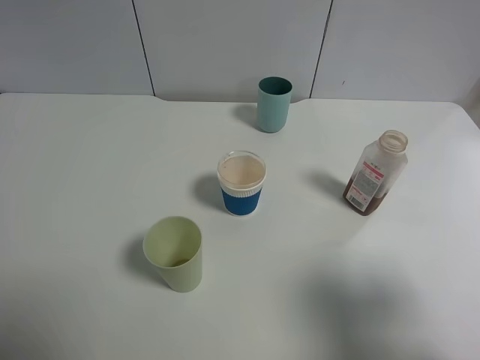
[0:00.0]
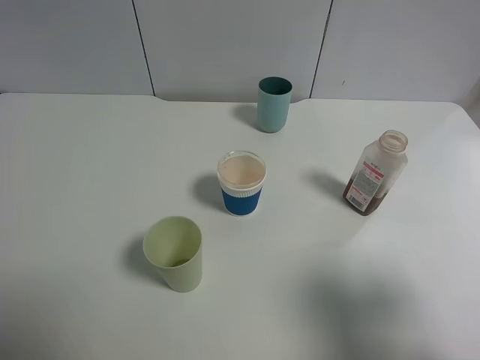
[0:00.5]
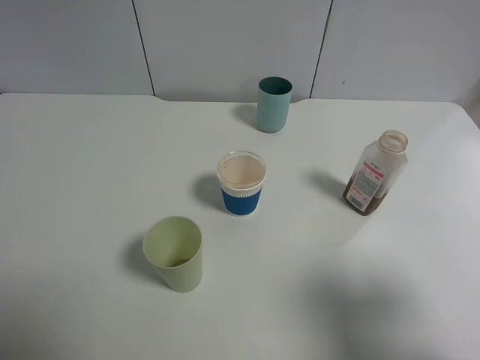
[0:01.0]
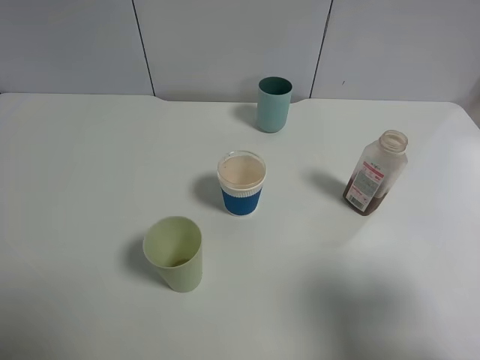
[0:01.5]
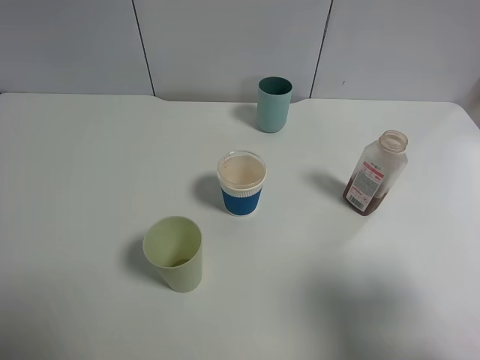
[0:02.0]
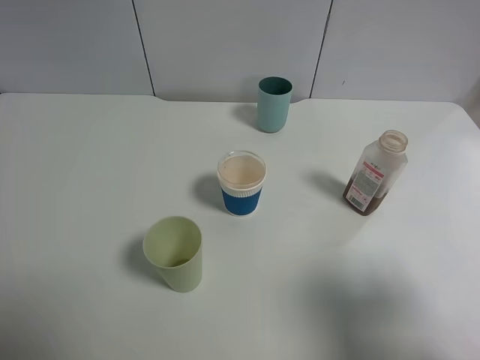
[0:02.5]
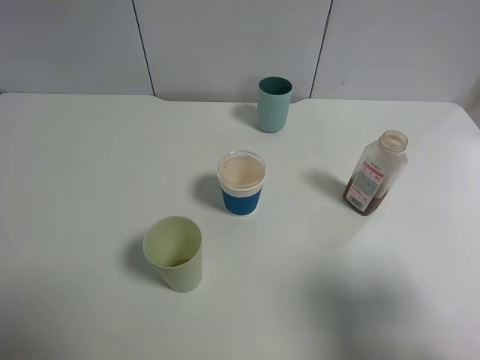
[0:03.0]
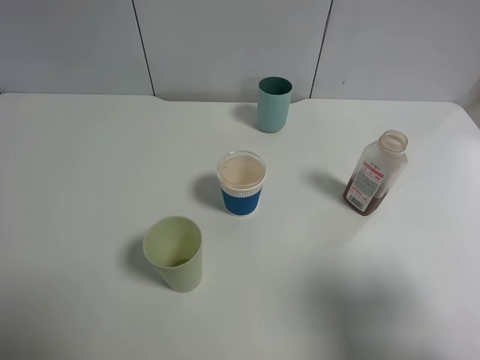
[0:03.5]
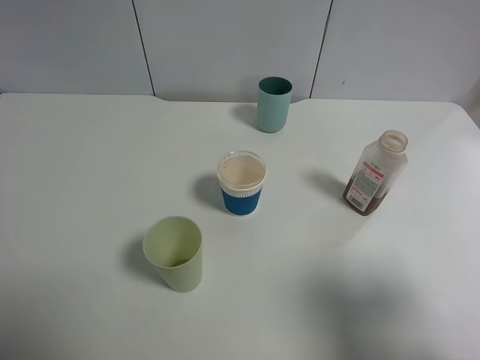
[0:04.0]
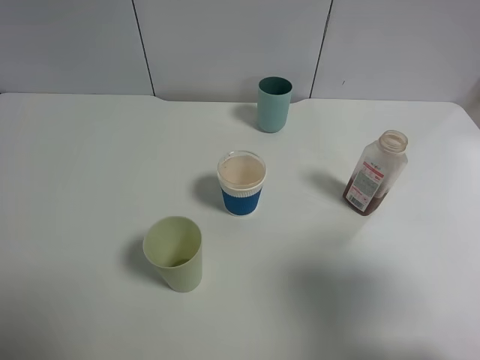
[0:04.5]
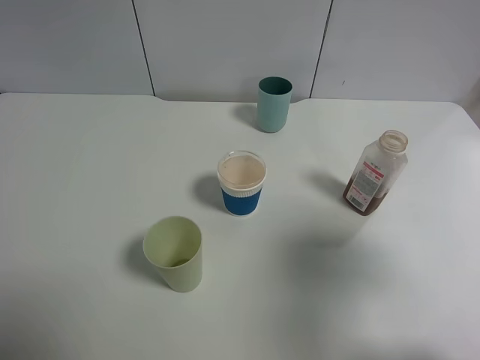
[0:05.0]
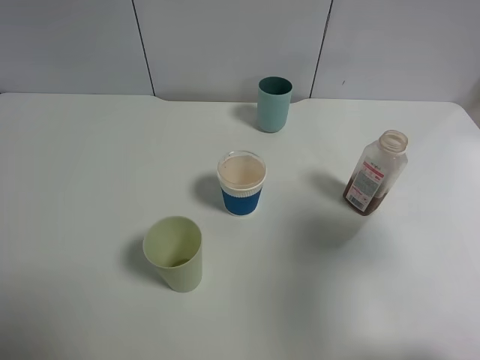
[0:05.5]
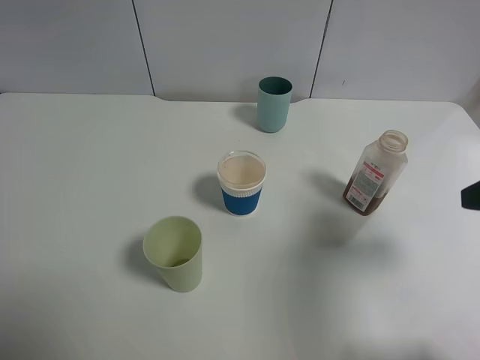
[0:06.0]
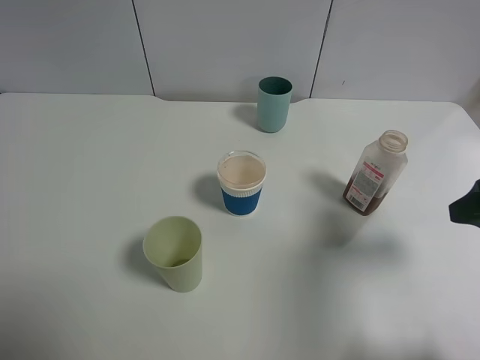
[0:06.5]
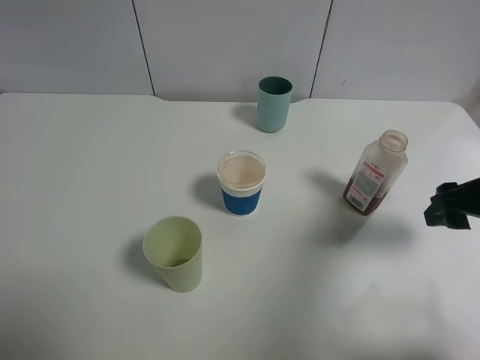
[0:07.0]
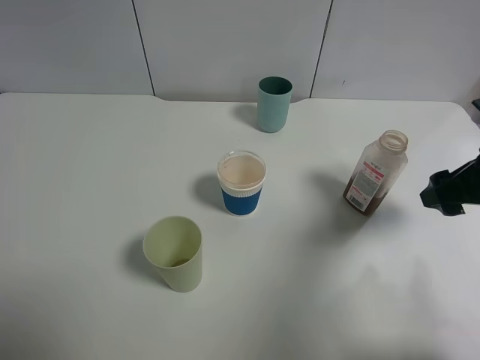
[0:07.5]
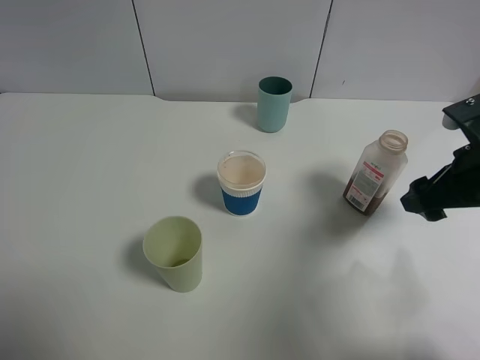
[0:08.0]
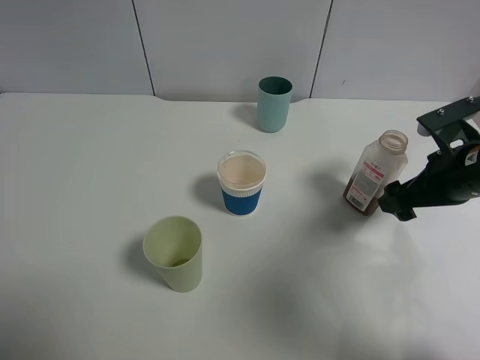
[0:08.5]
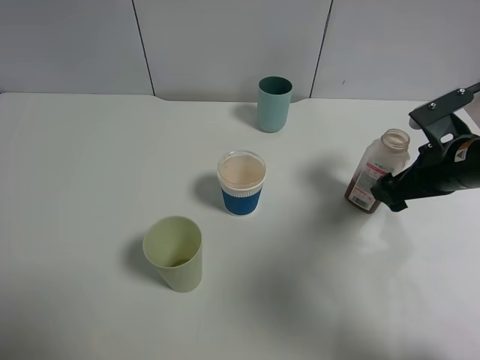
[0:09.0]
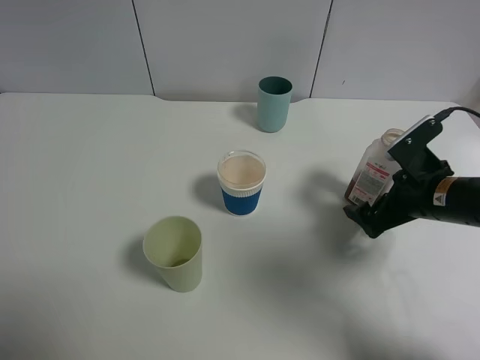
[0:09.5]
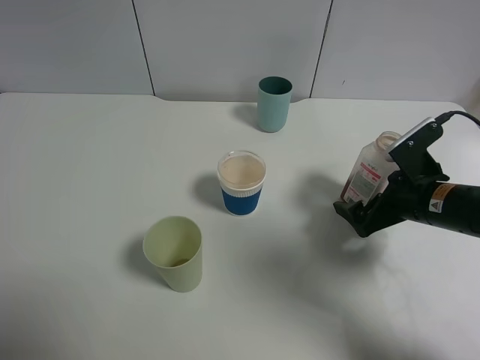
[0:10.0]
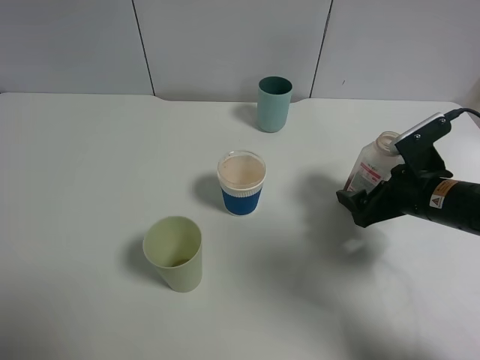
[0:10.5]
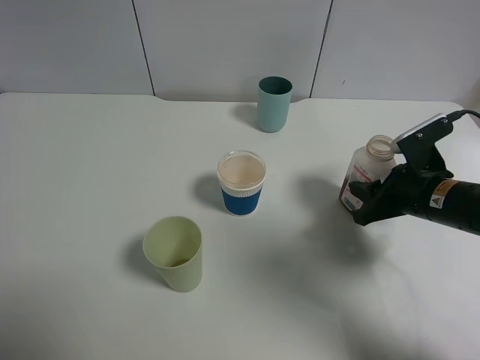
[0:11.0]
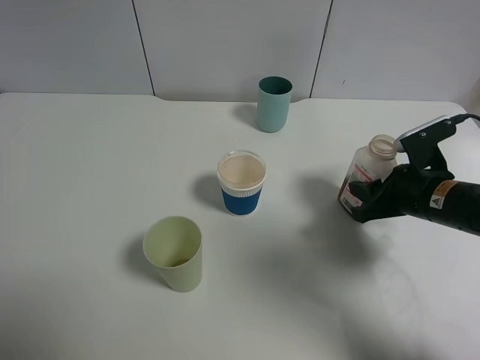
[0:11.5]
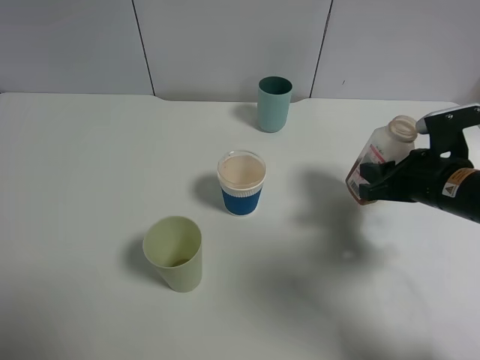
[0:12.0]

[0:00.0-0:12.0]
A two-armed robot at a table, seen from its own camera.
Task of the whole recording: use a gripper to hold the bottle of the drink and pour it into a random cup.
Step, 0:00.0 to 0:10.5: Grasp the cranberry juice bottle with the right gripper.
0:00.0 to 0:04.0: Both grippers stay put.
0:04.0 to 0:06.0: The right gripper is displaced forward by approximately 10 cm.
0:06.0 to 0:08.0: The right gripper heads forward and downward, covering roughly 10 cm.
0:08.0 to 0:10.0: The right gripper is displaced downward by about 10 cm.
0:10.0 to 0:12.0: The right gripper closes.

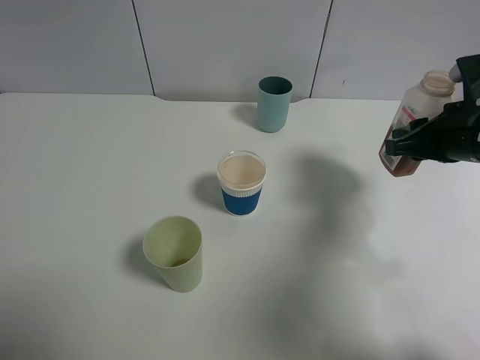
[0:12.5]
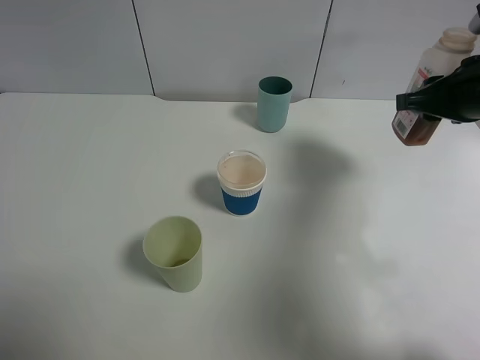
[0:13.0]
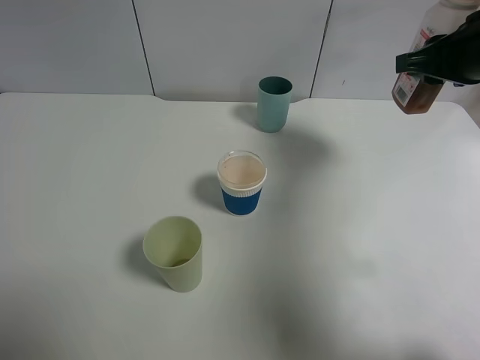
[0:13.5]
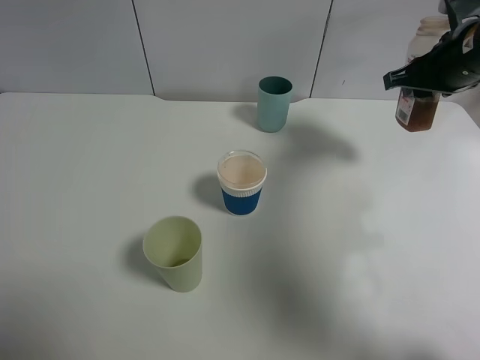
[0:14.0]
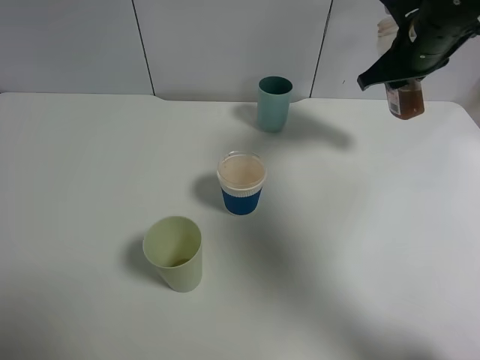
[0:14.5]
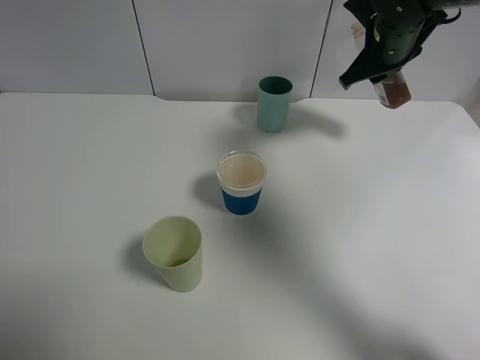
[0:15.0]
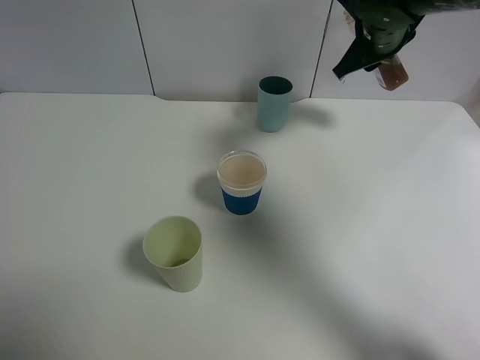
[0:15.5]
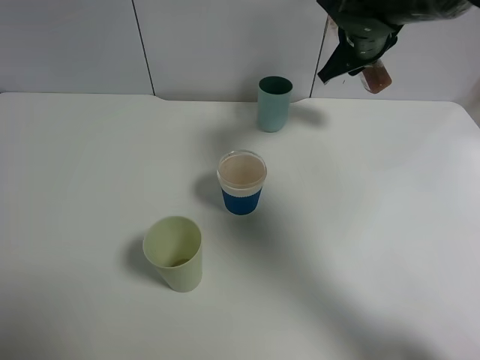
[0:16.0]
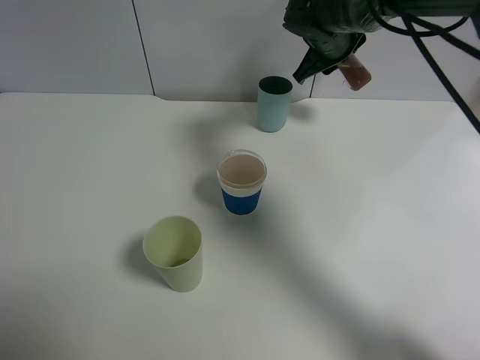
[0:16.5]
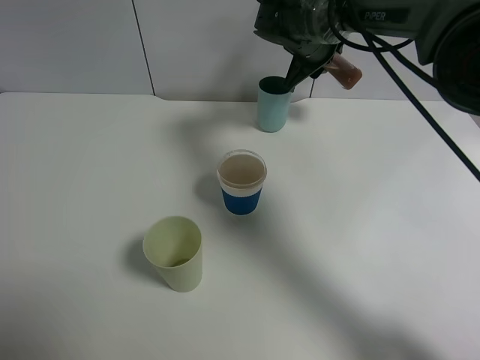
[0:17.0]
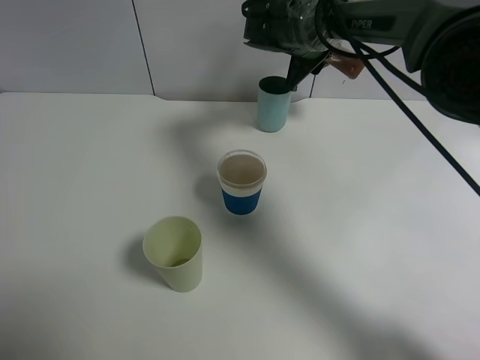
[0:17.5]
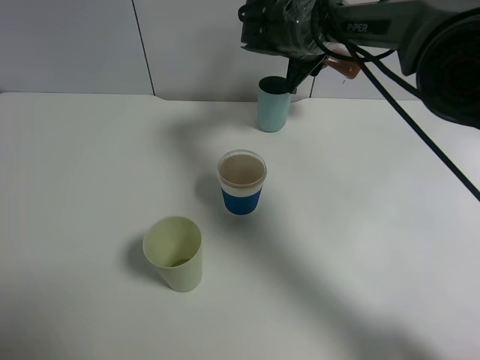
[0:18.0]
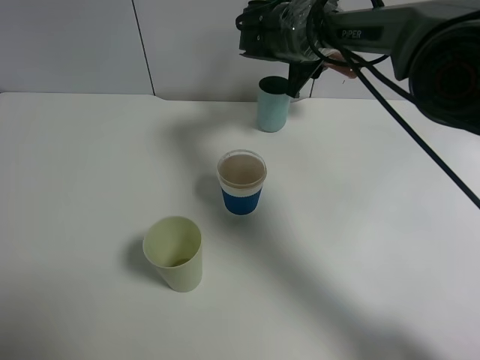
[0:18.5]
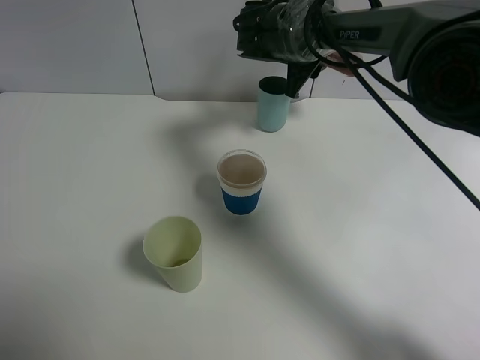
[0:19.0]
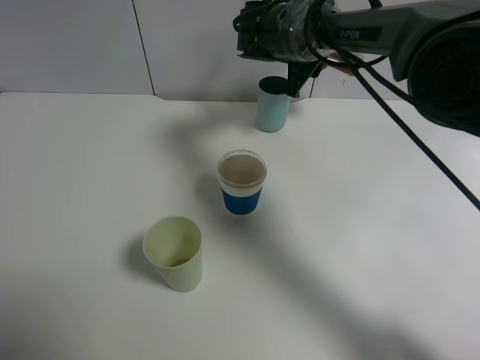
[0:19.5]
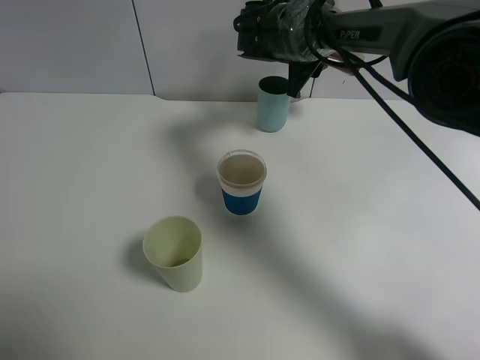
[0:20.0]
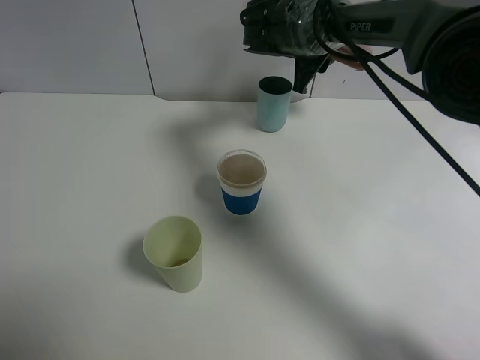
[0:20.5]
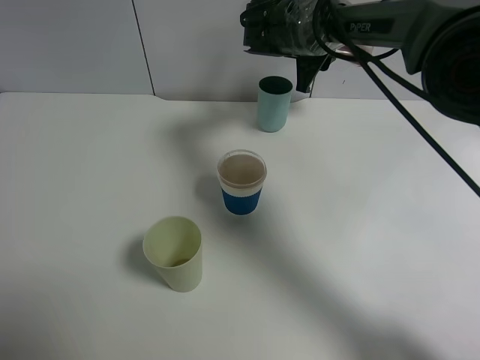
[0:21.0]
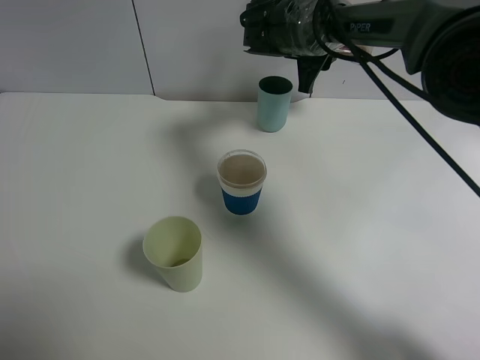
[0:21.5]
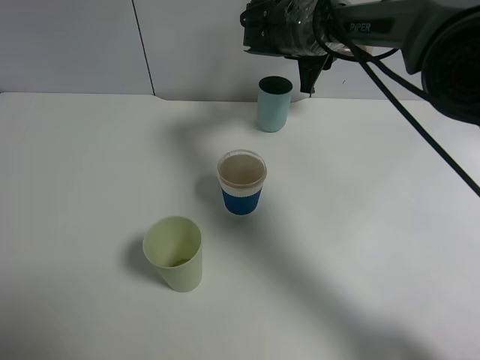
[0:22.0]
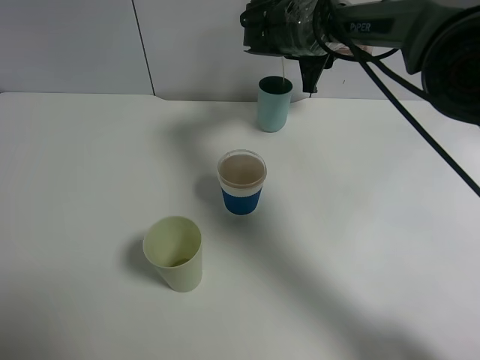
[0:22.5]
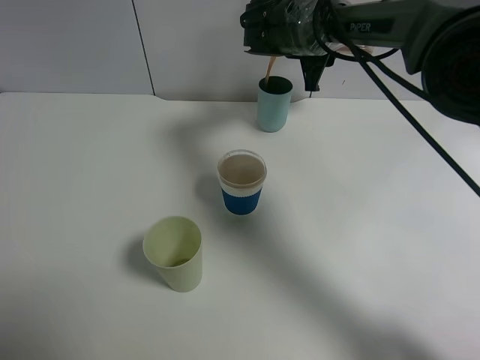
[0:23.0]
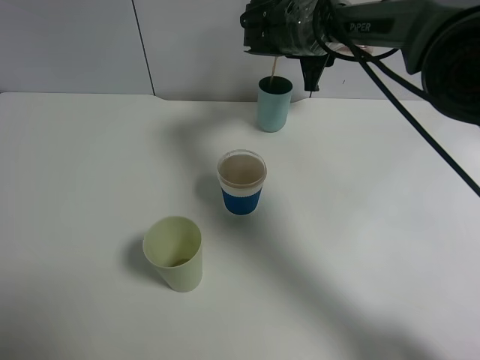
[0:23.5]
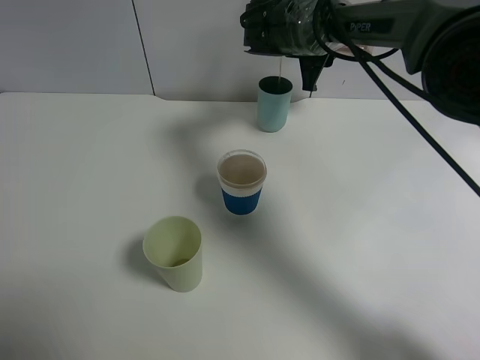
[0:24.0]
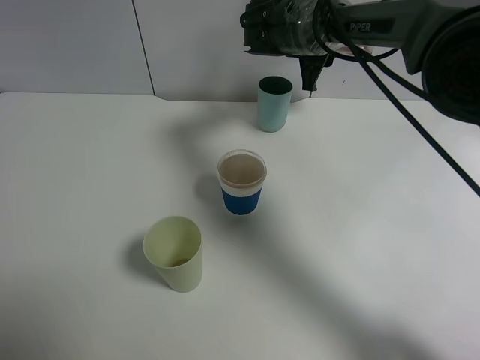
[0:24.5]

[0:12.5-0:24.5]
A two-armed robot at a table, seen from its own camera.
Task of the whole recording: use a gripper to hold the bottle of the drink and pour it into a random cup.
0:12.5 to 0:14.5: The right gripper travels forward by some 15 cm.
0:14.5 to 0:16.5: The right gripper goes approximately 15 cm to the left and forward.
0:18.5 to 0:20.5: Neither gripper changes place.
0:22.5 to 0:24.5: The two grippers keep their place.

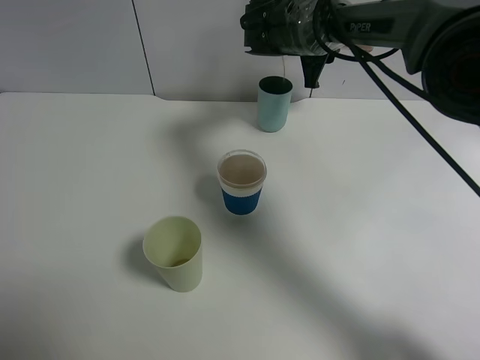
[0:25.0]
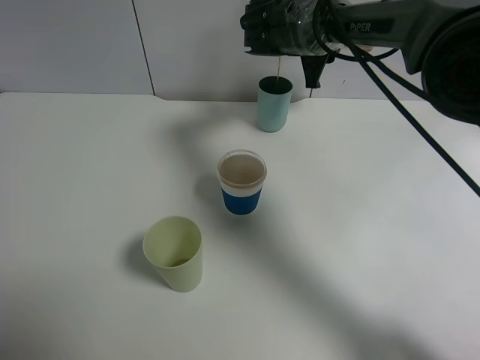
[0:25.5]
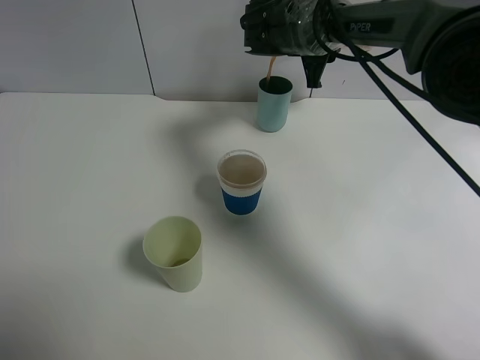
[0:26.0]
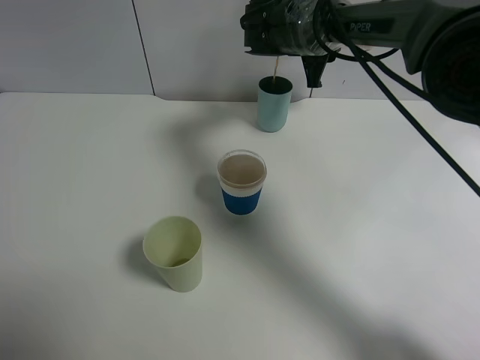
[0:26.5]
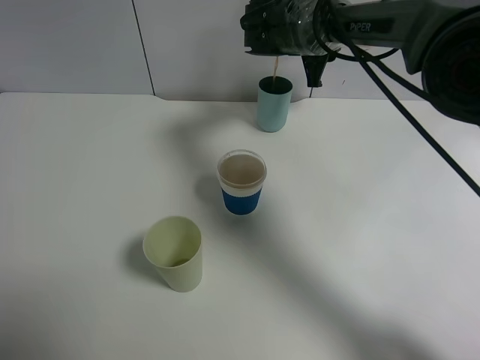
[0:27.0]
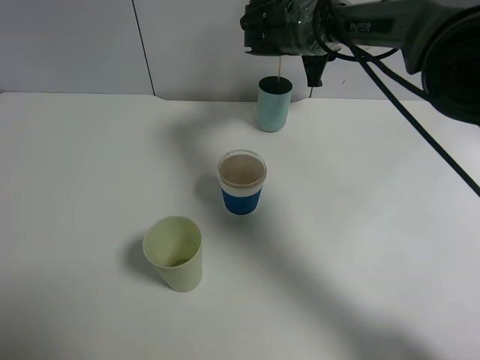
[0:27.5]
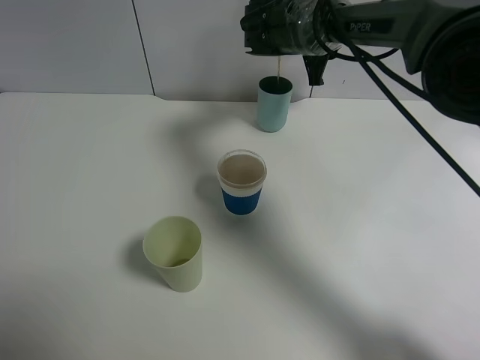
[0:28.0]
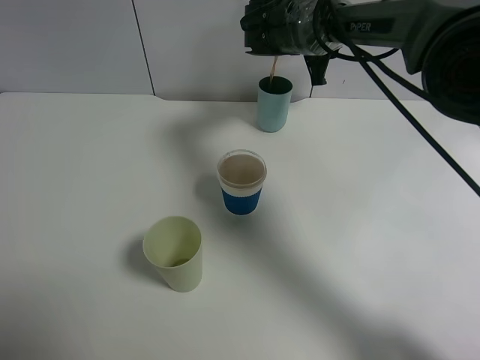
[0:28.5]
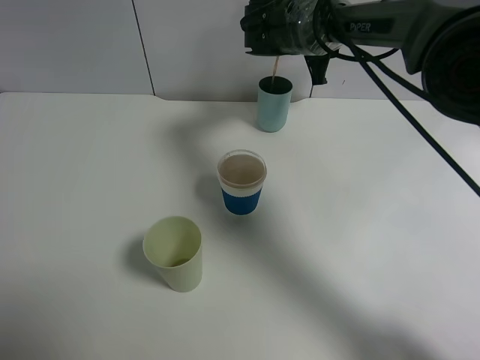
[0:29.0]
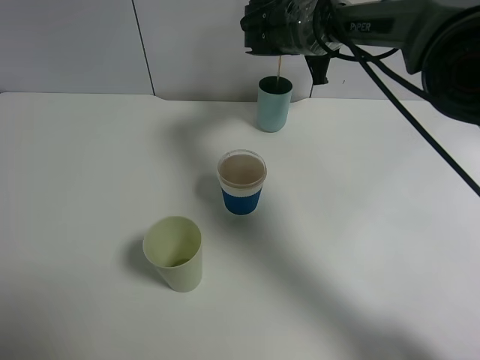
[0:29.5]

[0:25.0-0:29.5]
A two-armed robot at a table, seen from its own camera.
Task of the whole recording: use a gripper to hold the bottle of the drink and pour it into a random cup.
0:25.0 to 0:27.0: The two grippers keep their place.
